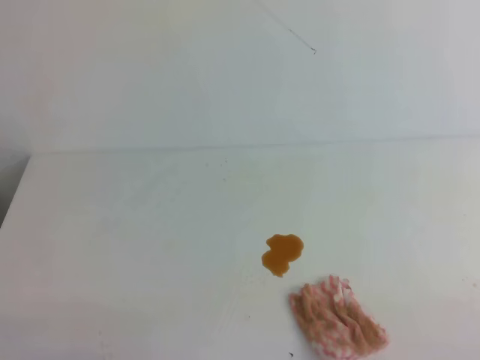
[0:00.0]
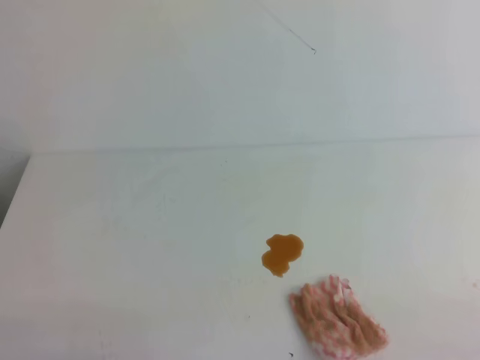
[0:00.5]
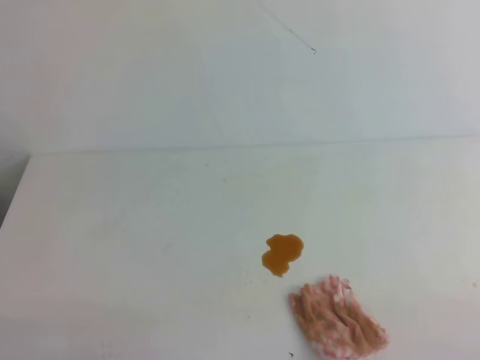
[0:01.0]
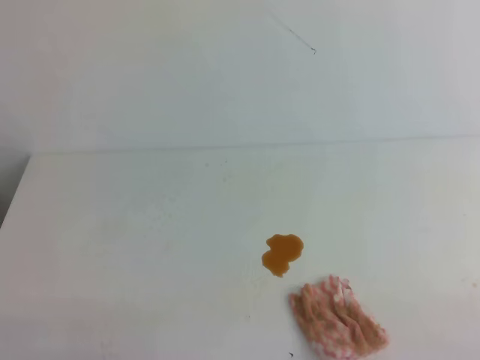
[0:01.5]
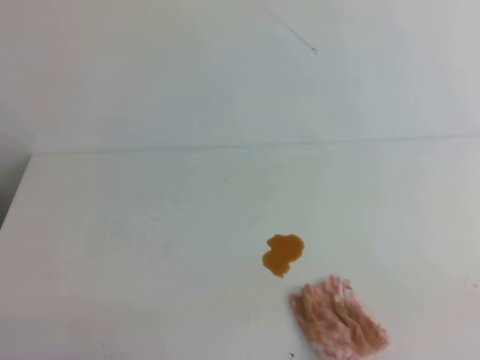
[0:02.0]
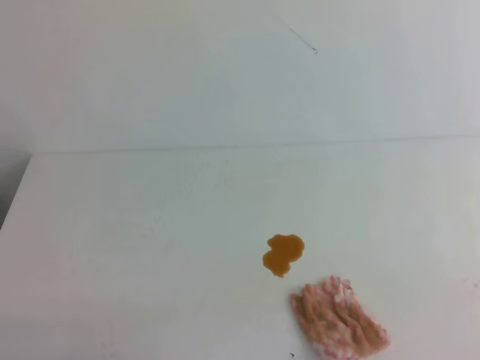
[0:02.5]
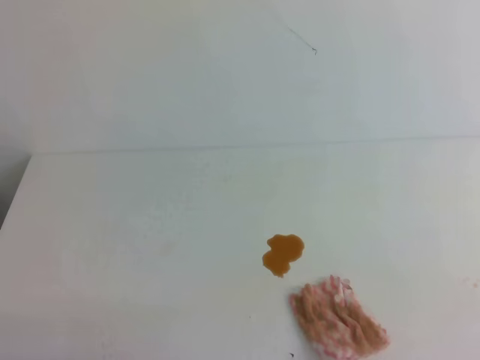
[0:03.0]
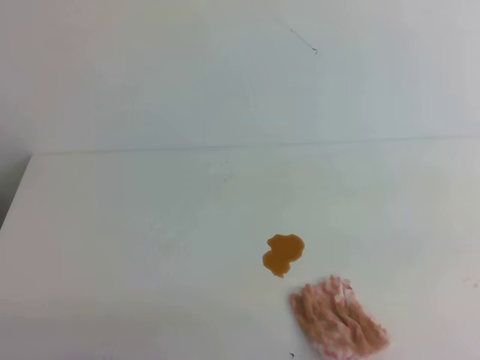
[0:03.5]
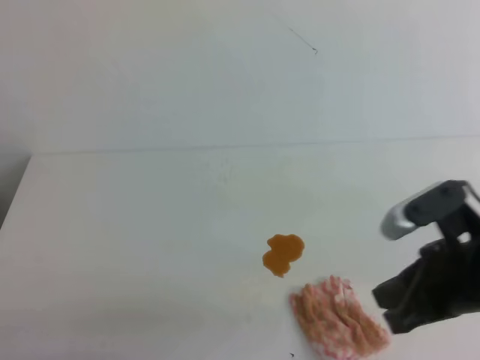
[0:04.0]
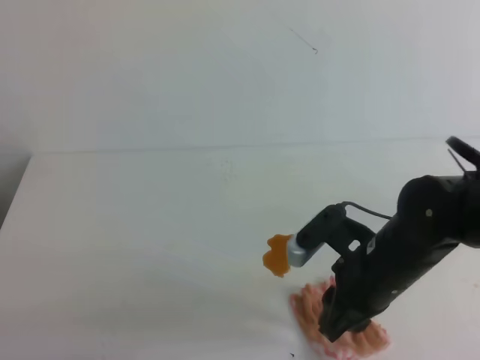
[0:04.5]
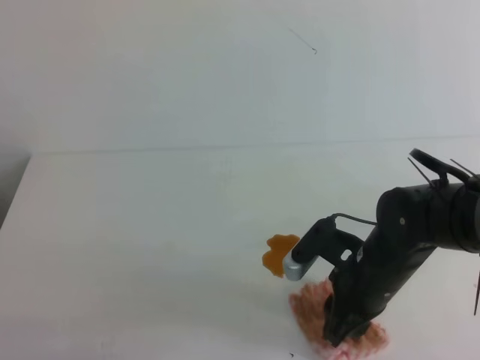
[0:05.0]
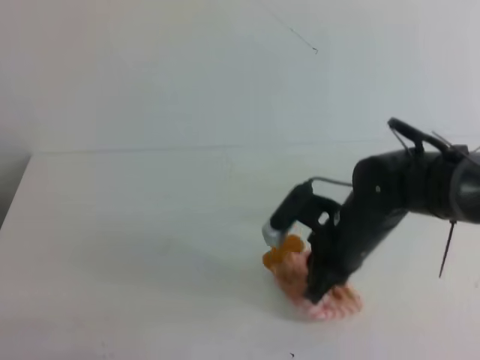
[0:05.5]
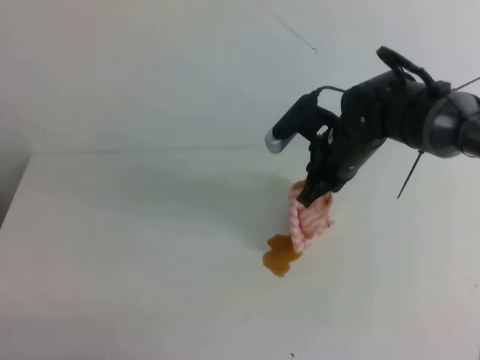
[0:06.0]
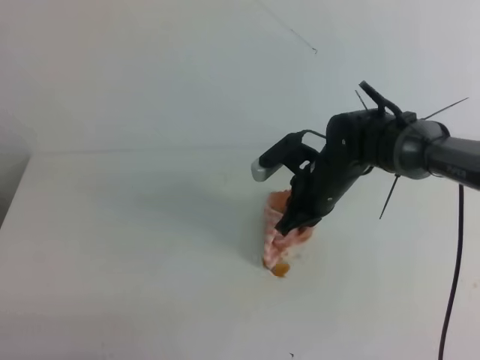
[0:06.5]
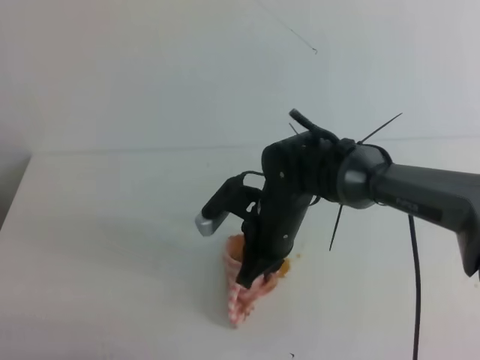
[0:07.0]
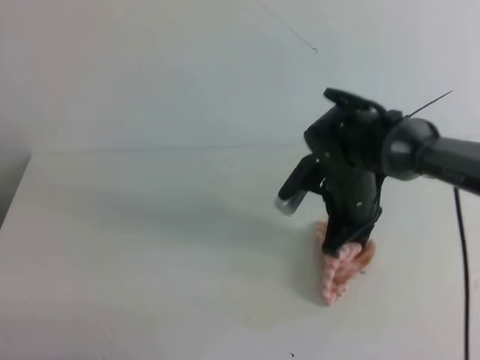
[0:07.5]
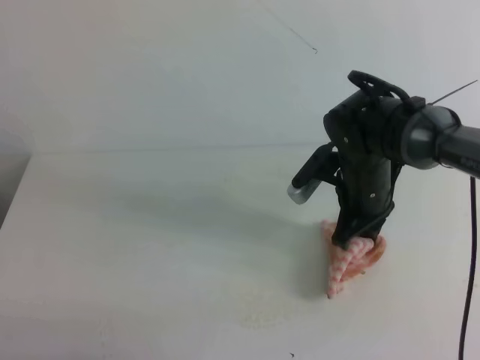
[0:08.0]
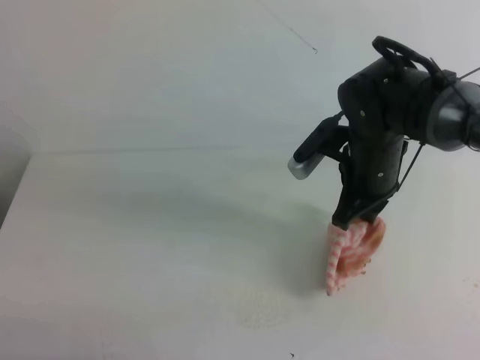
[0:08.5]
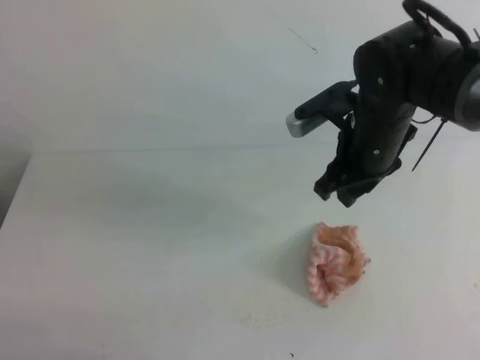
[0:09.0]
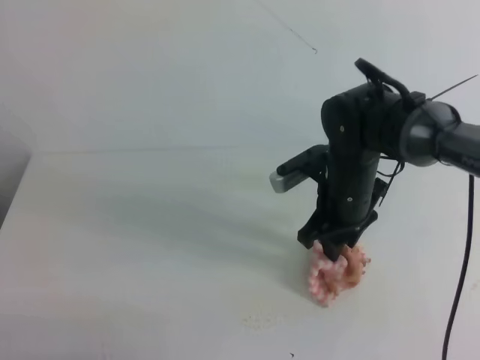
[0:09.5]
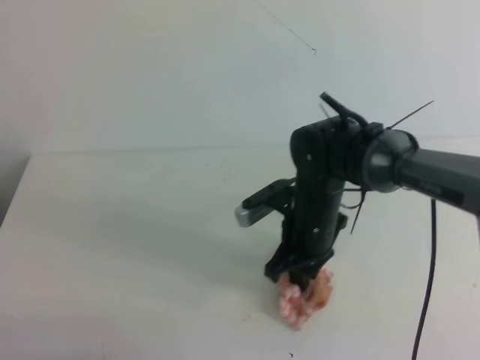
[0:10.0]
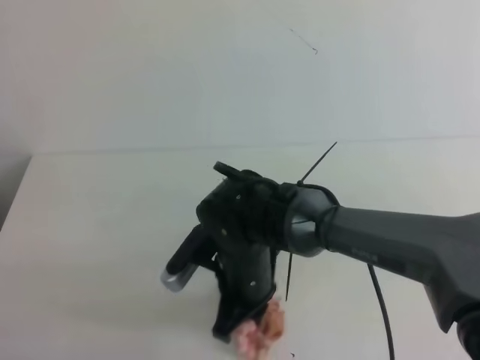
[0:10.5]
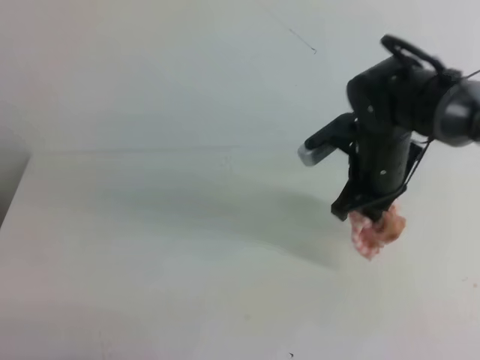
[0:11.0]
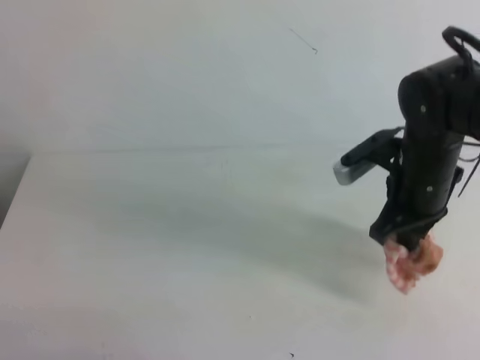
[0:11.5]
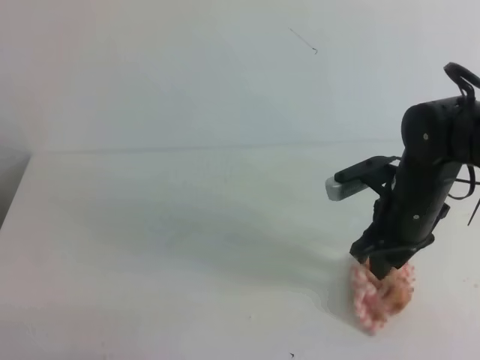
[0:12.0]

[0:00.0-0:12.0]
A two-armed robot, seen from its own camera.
0:02.0 to 0:04.0: The right gripper heads forward and to the left, covering roughly 20 cm.
0:04.0 to 0:06.0: The right gripper moves forward and to the left, roughly 20 cm, and opens and closes again.
0:06.0 to 0:08.0: The right gripper moves approximately 5 cm to the left and comes back.
0:08.0 to 0:10.0: The right gripper heads to the left and downward, covering roughly 10 cm, and opens, then closes once more.
0:10.0 to 0:12.0: The right gripper heads to the right and upward, covering approximately 15 cm, and opens its fingers.

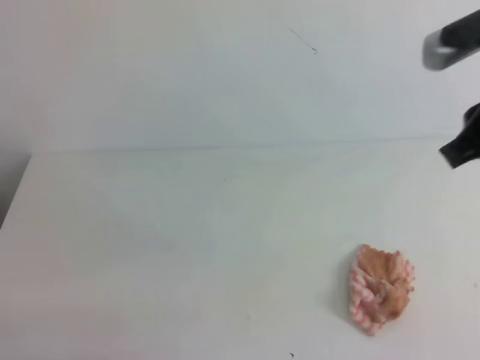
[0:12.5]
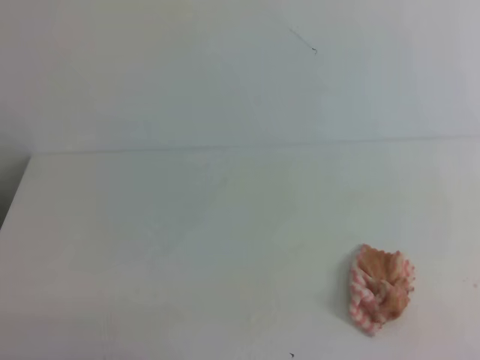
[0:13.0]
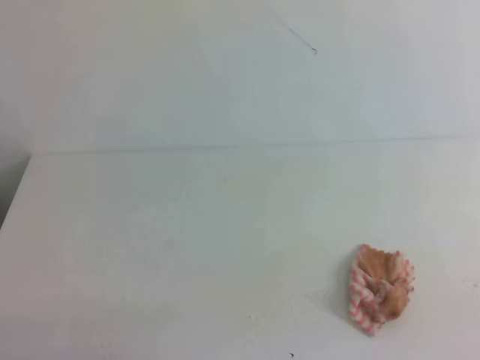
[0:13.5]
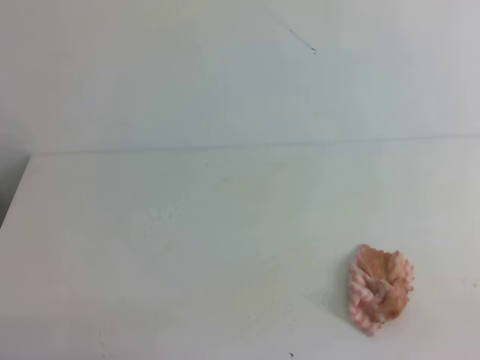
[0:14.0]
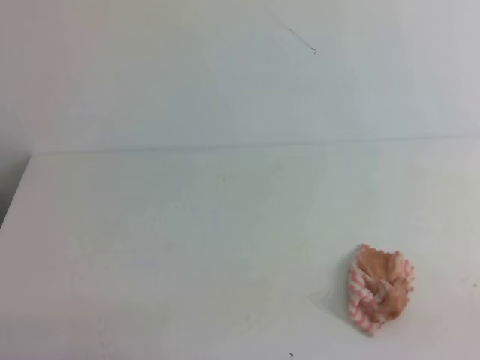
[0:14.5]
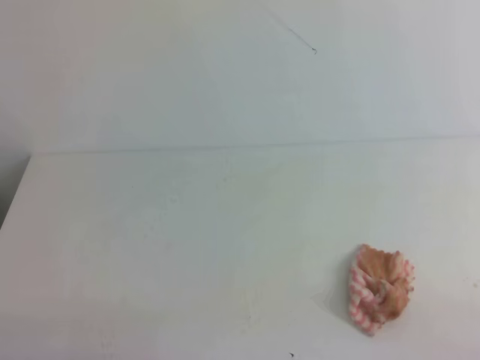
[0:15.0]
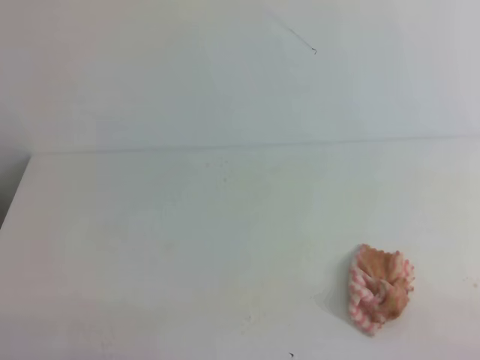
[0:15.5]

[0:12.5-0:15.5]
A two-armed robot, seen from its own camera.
0:12.5 to 0:14.0: The right gripper goes approximately 25 cm backward, downward and to the right.

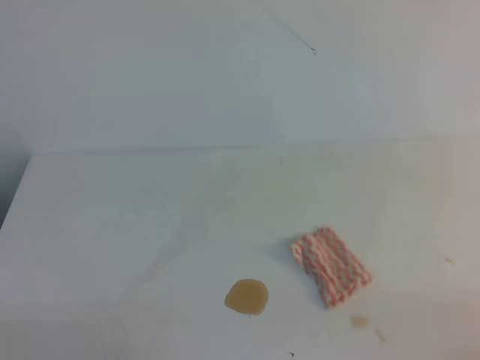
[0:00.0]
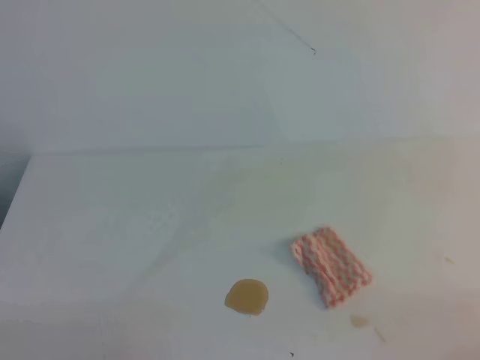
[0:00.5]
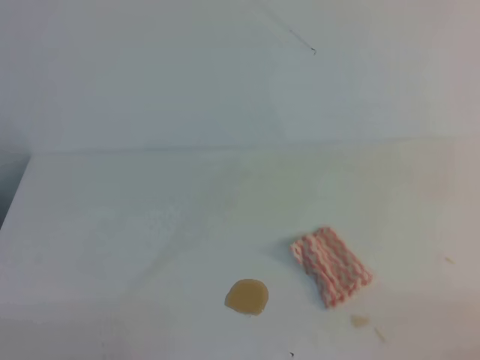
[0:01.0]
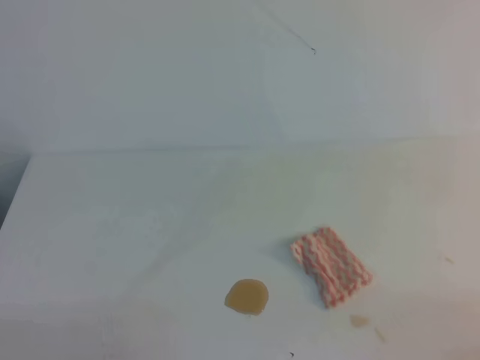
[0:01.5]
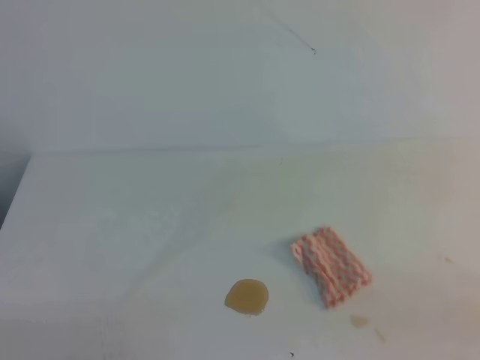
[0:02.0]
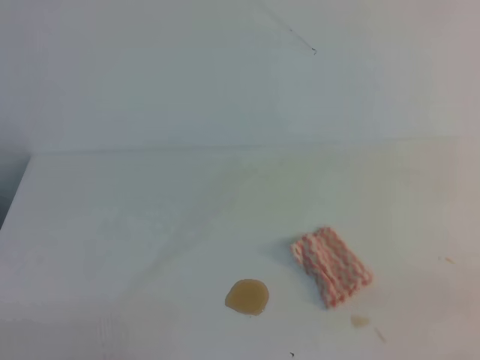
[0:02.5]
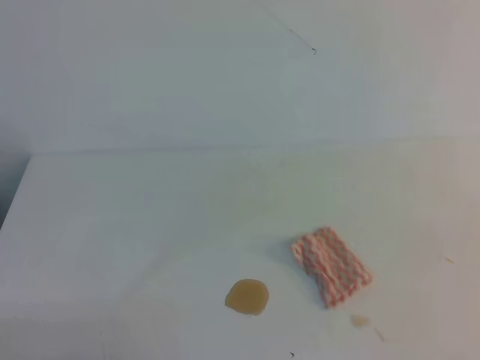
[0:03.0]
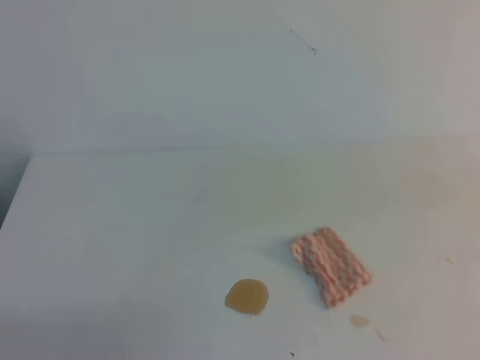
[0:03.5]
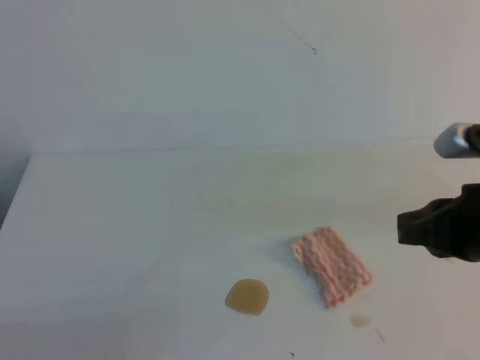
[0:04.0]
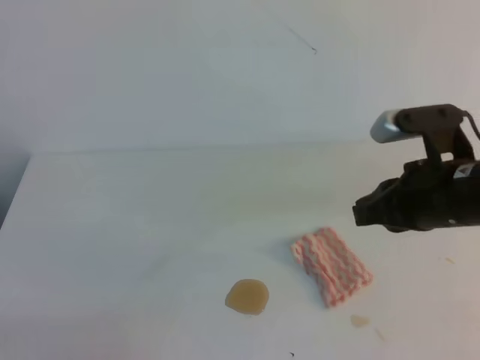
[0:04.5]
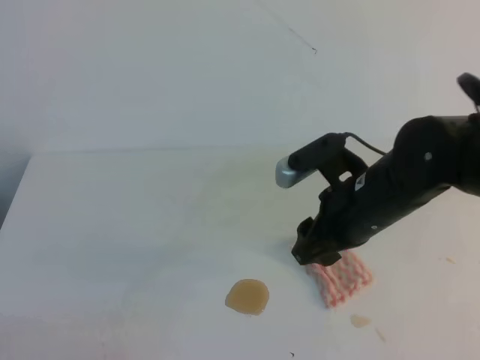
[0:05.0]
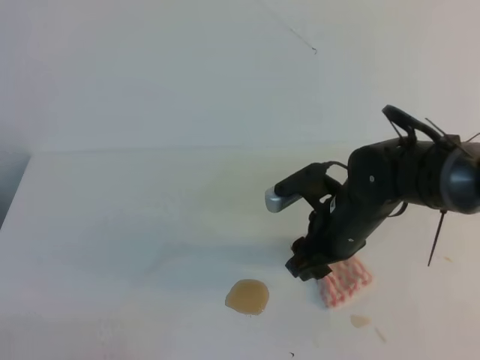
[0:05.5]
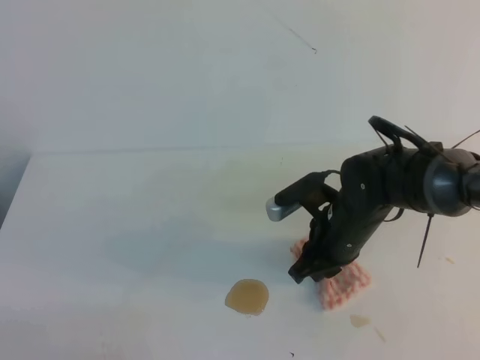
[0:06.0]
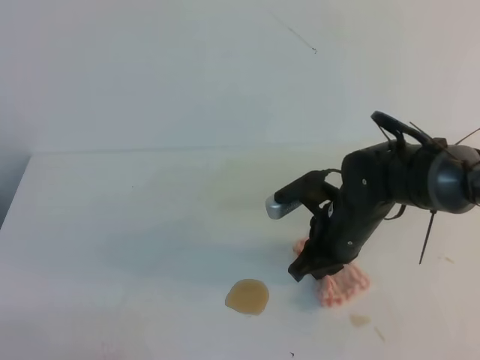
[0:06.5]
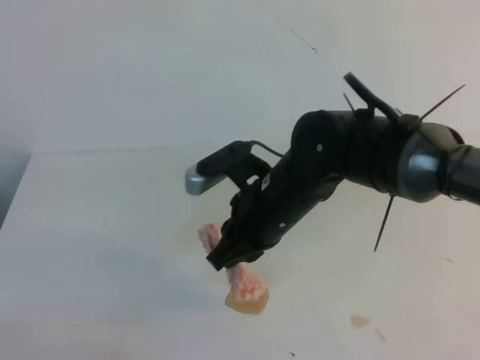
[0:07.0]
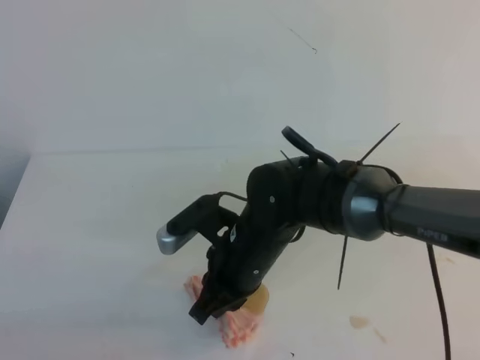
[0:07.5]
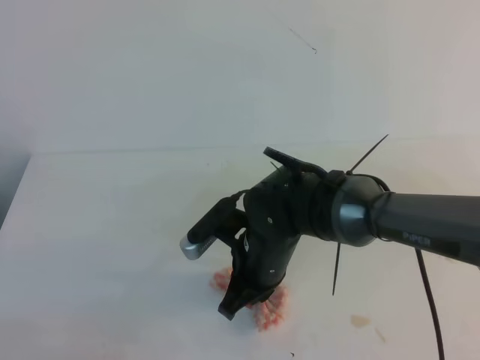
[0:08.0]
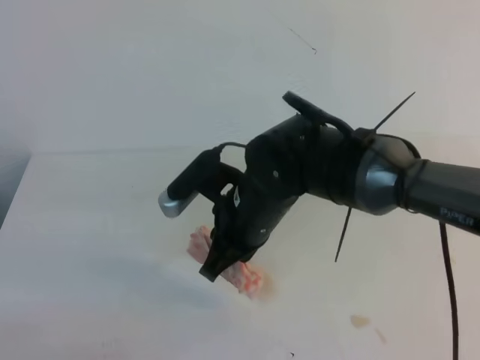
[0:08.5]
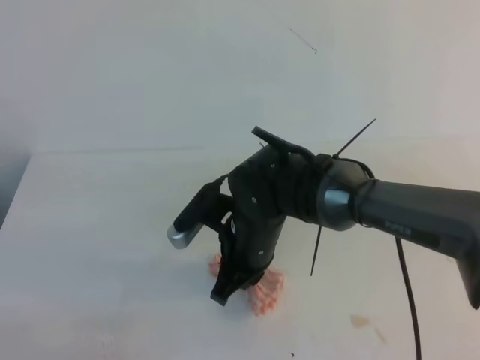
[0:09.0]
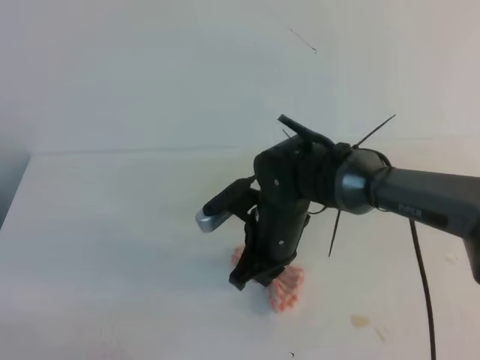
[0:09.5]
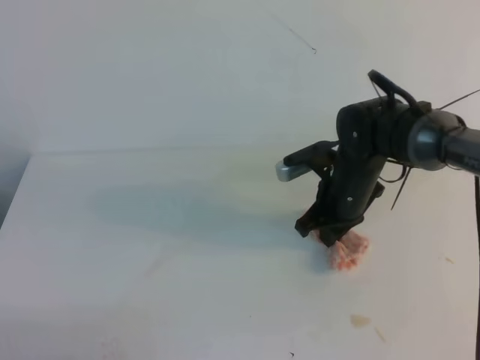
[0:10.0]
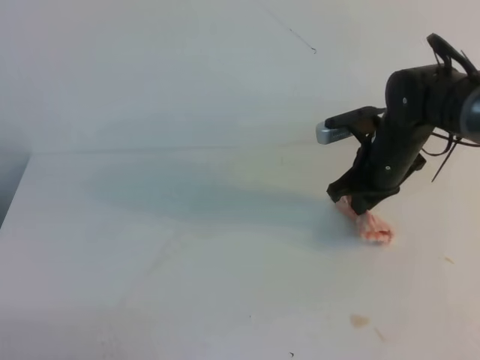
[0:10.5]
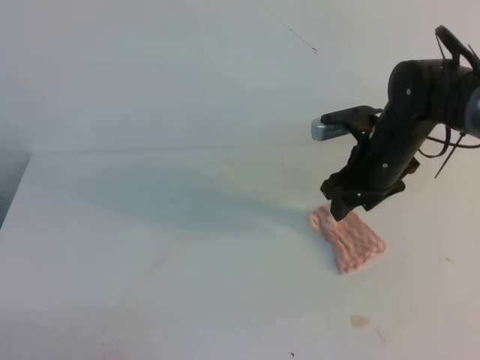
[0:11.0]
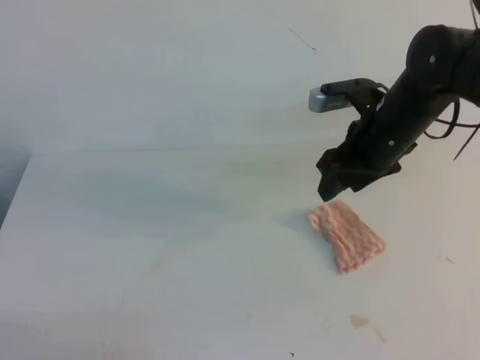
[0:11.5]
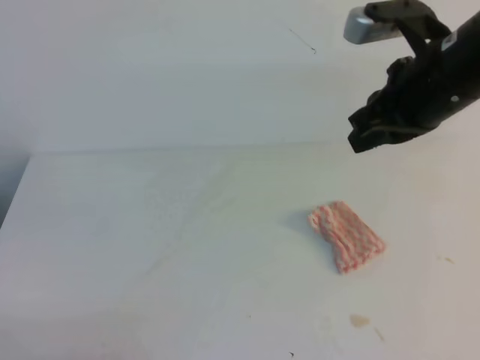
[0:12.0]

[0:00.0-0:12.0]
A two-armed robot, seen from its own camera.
0:02.0 to 0:04.0: The right gripper heads forward, to the left and upward, covering about 20 cm.
0:04.0 to 0:06.0: The right gripper shifts some 20 cm downward, forward and to the left, and opens up.
0:06.0 to 0:08.0: The right gripper is displaced to the left by roughly 10 cm, and closes up.
0:08.0 to 0:10.0: The right gripper moves to the right and forward, about 15 cm.
0:10.0 to 0:12.0: The right gripper travels upward by roughly 20 cm, and opens, then closes once more.
